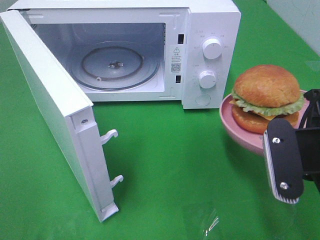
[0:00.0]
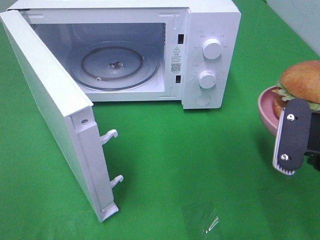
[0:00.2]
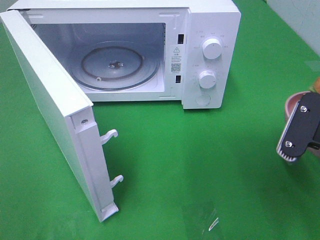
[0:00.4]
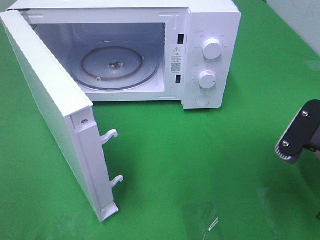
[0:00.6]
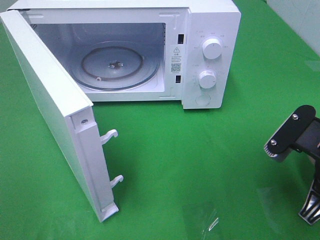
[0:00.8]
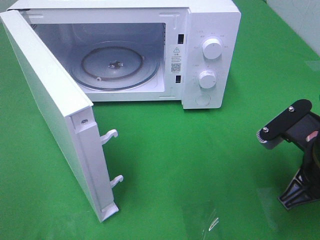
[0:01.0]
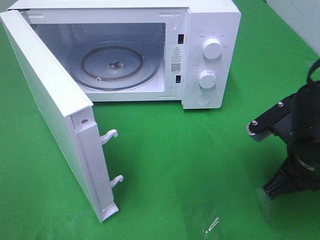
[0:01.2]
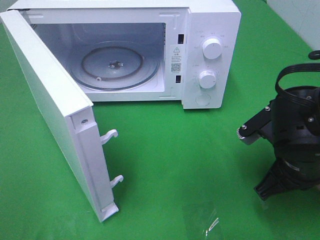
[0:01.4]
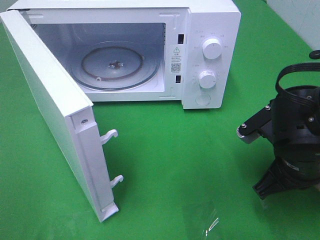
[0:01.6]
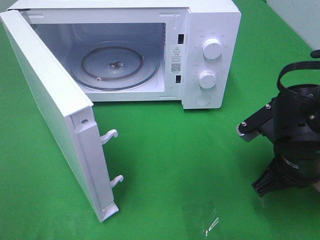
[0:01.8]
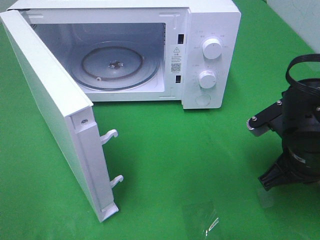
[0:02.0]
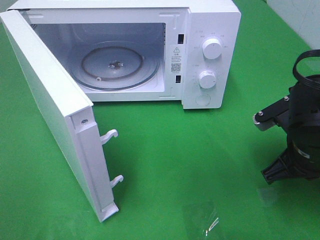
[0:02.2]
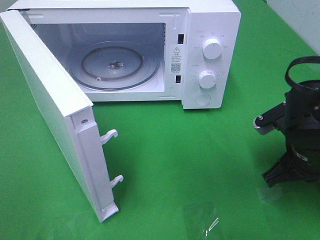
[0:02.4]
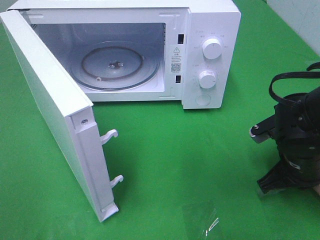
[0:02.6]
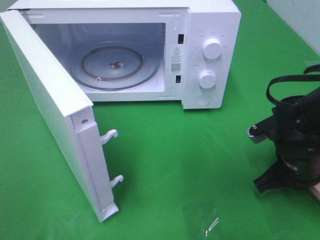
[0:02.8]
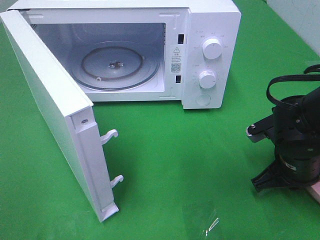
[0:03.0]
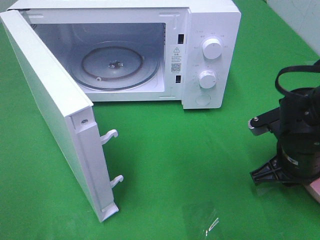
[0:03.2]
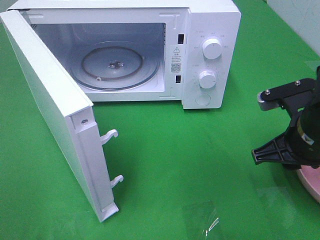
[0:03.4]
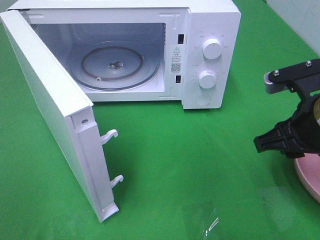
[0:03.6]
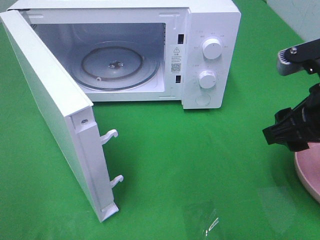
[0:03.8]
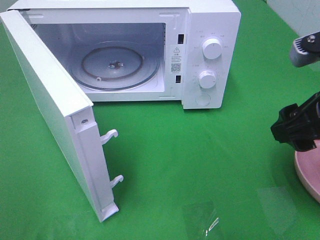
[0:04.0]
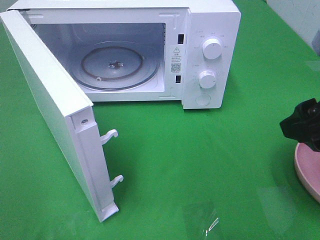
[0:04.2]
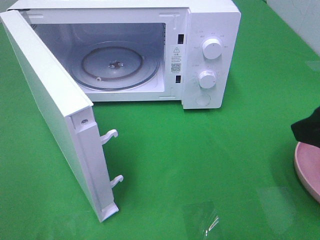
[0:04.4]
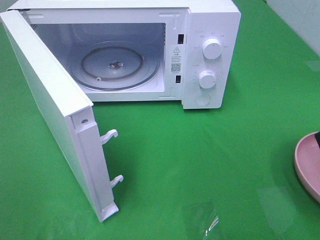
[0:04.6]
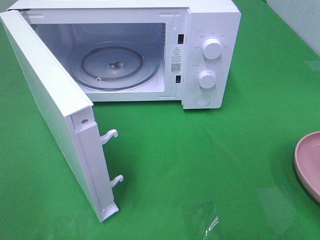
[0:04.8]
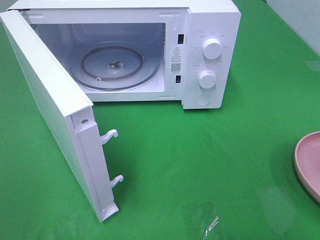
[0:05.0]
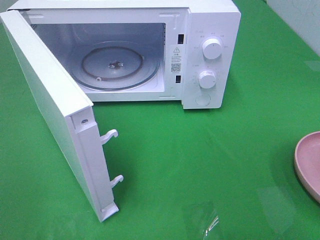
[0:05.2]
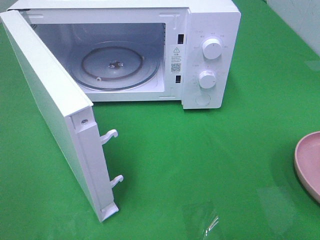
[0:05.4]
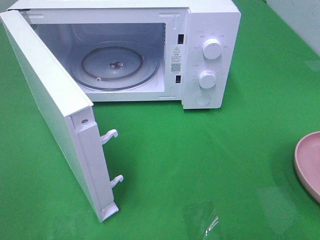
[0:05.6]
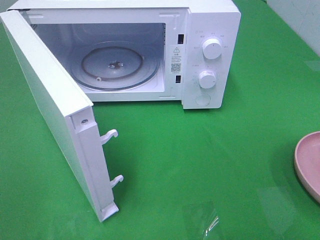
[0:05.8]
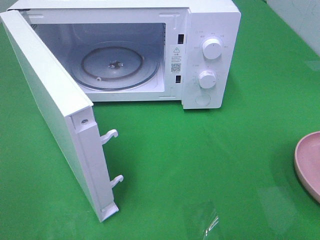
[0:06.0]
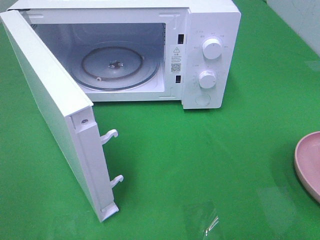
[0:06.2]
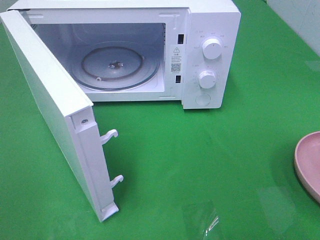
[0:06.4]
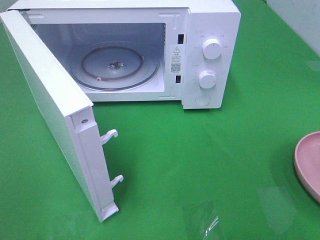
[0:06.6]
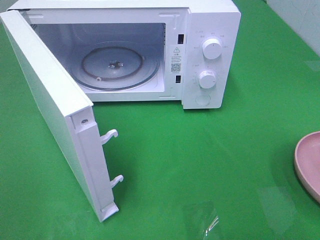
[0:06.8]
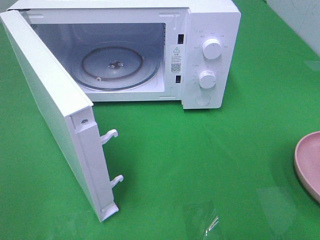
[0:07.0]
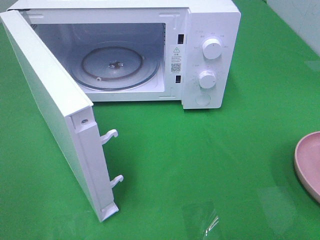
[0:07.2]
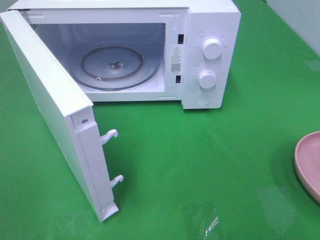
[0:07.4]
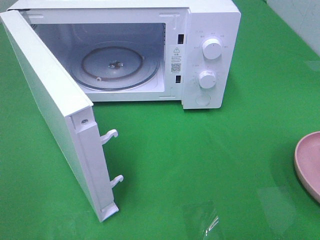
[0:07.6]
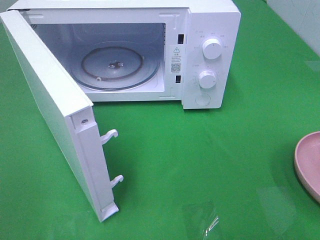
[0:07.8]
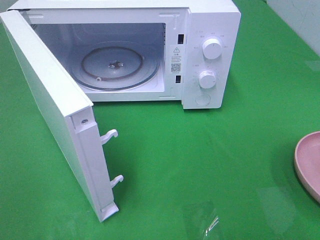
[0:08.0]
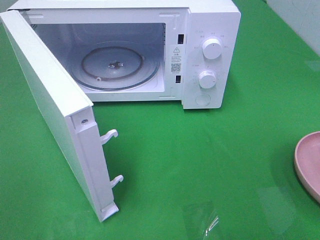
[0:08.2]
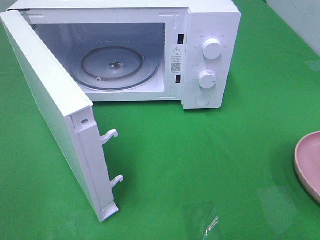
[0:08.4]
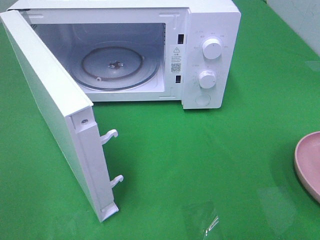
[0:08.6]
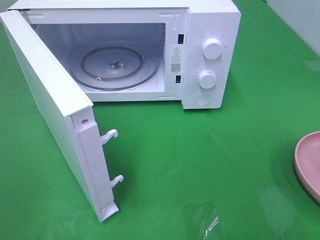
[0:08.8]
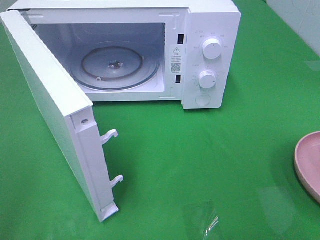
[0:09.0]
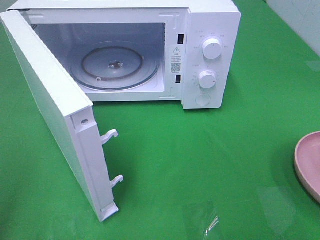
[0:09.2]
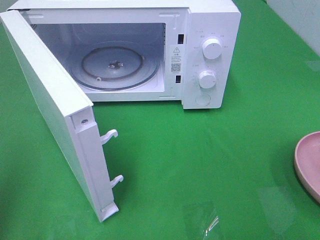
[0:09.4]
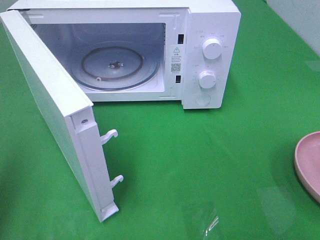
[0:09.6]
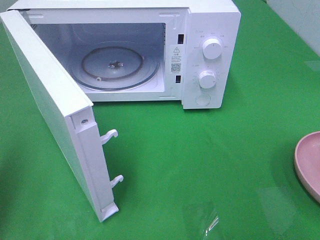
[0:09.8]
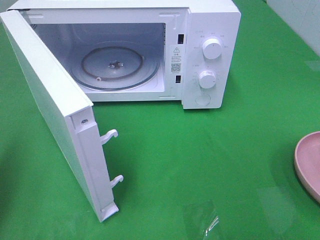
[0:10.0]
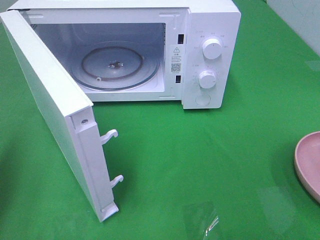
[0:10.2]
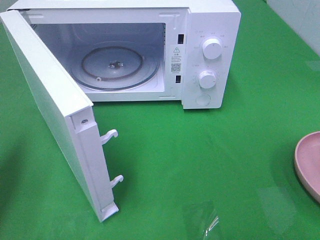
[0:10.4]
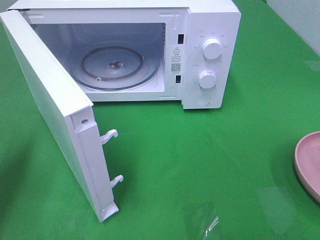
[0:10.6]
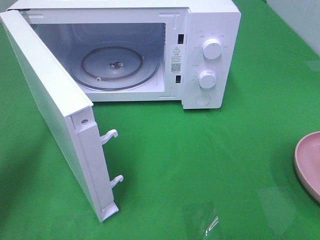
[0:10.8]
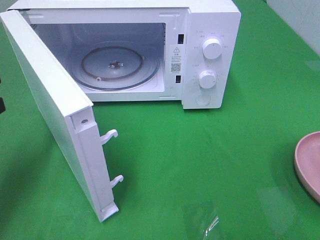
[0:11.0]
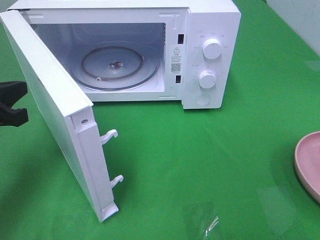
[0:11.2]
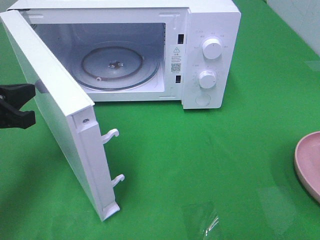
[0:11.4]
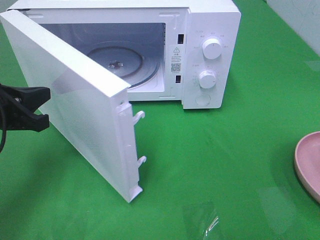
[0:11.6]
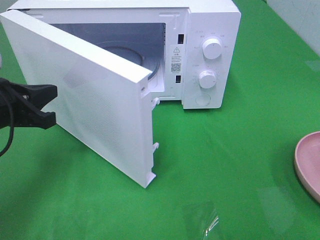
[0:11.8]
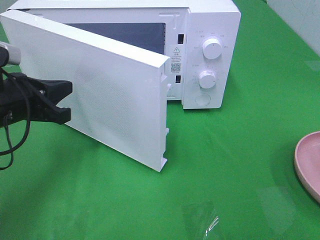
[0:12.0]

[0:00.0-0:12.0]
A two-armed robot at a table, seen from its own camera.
Task of the whole recording: Heat the burger.
Step, 0:00.0 to 0:03.2: Right hand: place the plate on the table.
0:00.0 to 0:01.6: The right gripper shifts roughly 10 cm downward and forward.
0:01.6 to 0:03.0: The right gripper moves about 5 cm.
0:03.0 to 0:04.4: The right gripper goes some 20 cm upward and backward, and opens up.
0:04.4 to 0:06.0: The right gripper travels backward and to the right by some 15 cm.
0:06.0 to 0:07.6: Both grippers stay about where they are.
0:09.0 to 0:10.4: The left gripper shifts some 20 cm forward and downward, and closes its fingers.
0:10.4 to 0:12.0: The left gripper travels to the right, forward and downward by some 15 cm.

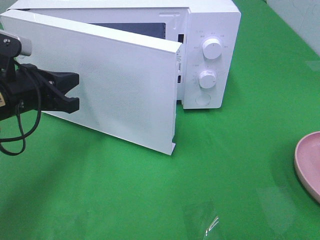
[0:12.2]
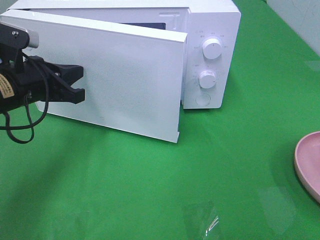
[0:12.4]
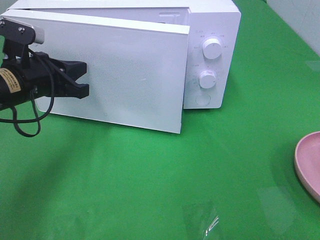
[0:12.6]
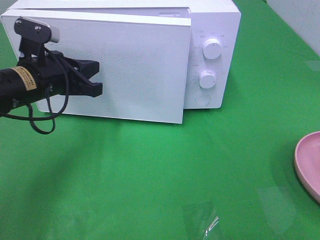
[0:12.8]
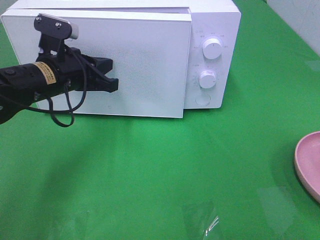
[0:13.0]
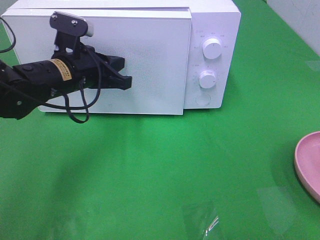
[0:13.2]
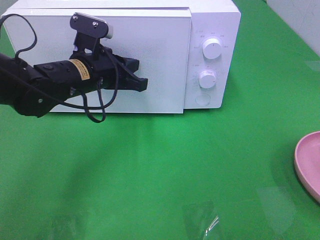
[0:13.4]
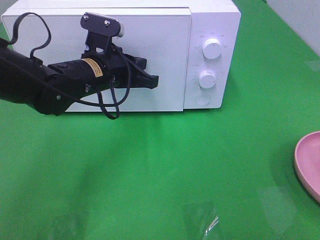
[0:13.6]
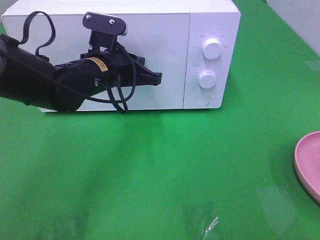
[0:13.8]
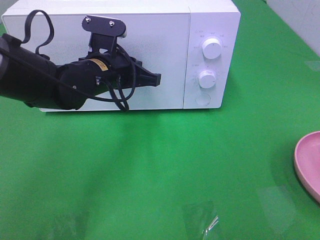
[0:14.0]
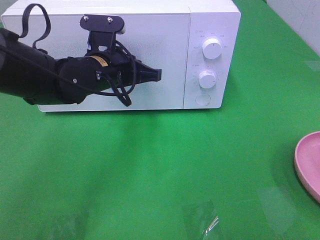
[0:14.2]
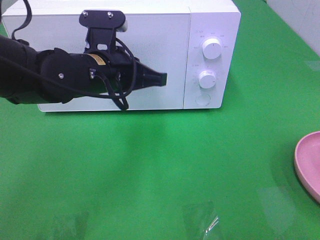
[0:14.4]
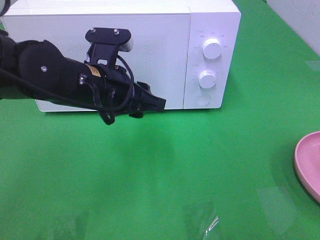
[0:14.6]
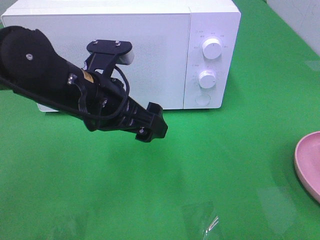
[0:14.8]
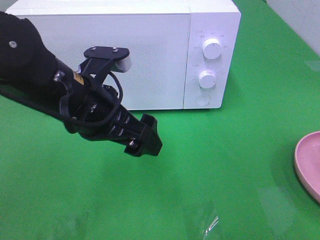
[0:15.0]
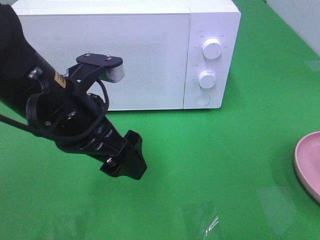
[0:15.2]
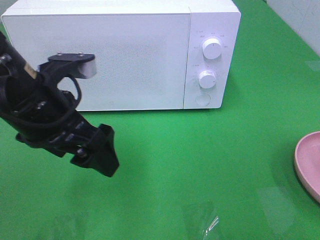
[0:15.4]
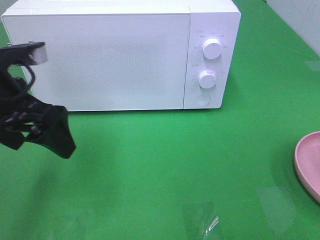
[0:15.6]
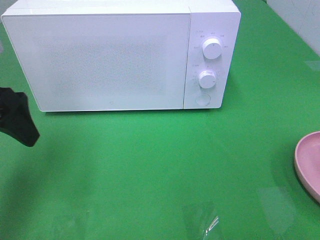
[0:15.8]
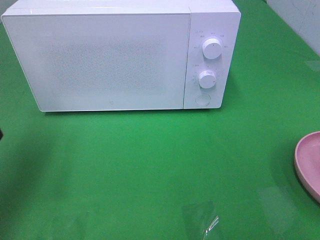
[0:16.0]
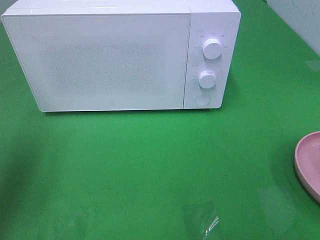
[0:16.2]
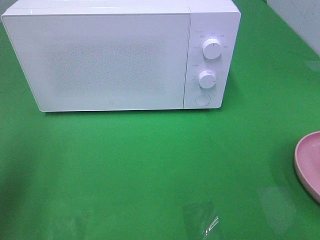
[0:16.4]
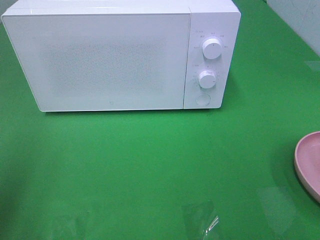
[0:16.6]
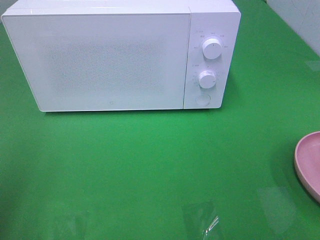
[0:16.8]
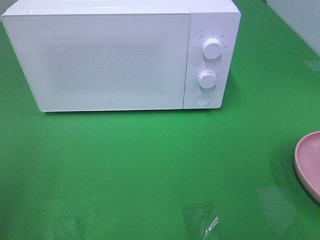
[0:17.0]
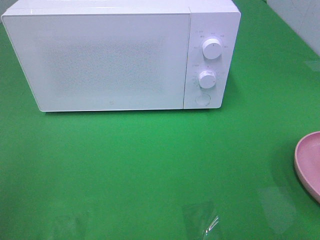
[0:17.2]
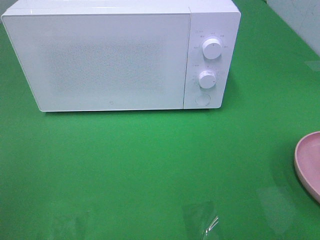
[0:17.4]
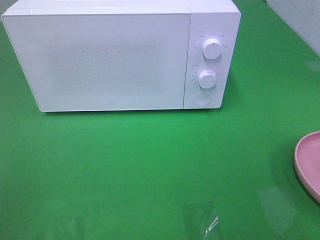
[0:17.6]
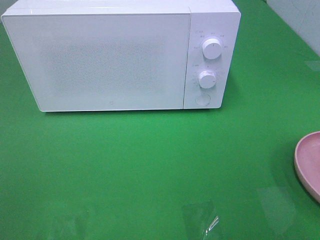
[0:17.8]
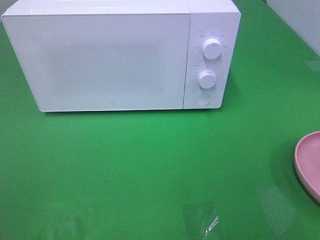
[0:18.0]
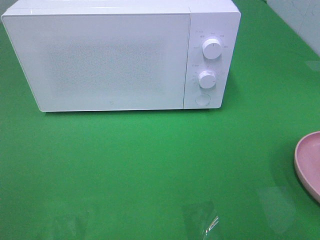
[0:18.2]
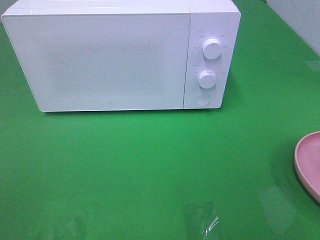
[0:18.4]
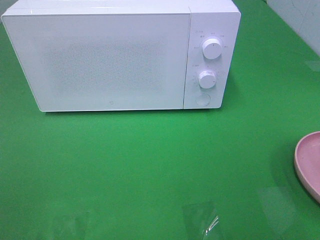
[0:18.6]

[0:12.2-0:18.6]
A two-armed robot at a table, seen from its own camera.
Task of the whole recording: Heat the burger.
0:12.2 to 0:13.8: The left gripper heads to the right and forward, covering about 15 cm.
0:13.8 to 0:15.4: The left gripper heads backward and upward, covering approximately 15 cm, and opens.
0:15.4 to 0:17.0: The left gripper goes approximately 25 cm to the left and backward.
